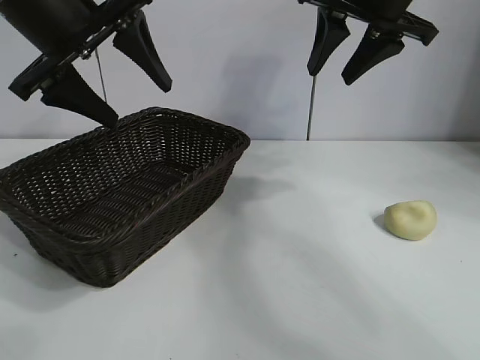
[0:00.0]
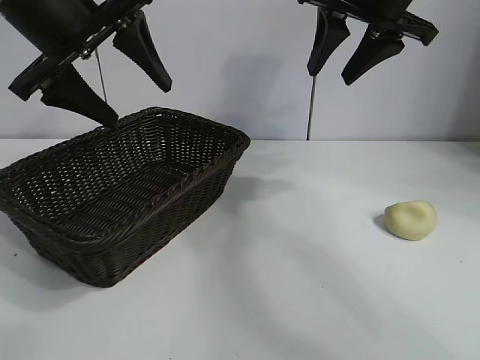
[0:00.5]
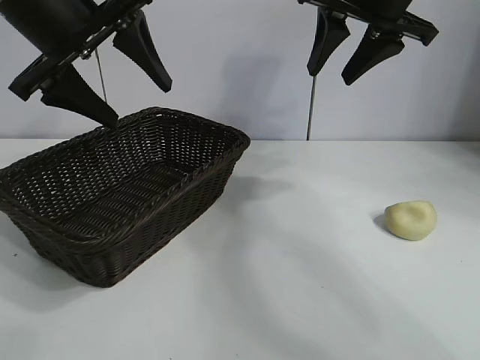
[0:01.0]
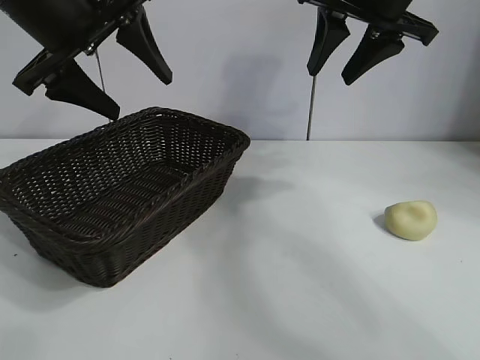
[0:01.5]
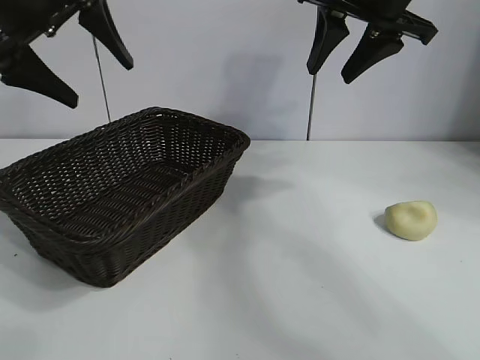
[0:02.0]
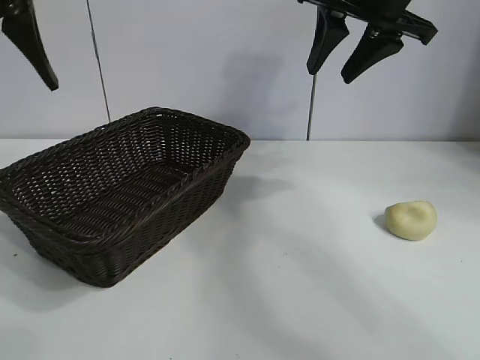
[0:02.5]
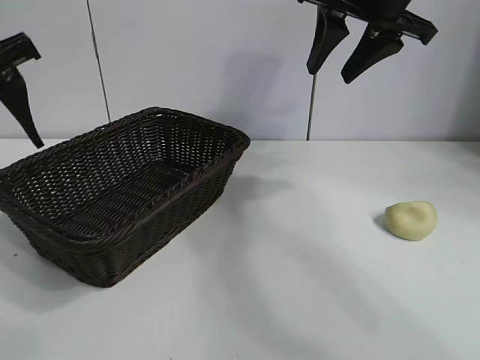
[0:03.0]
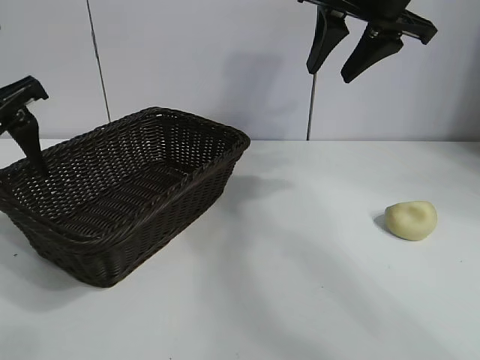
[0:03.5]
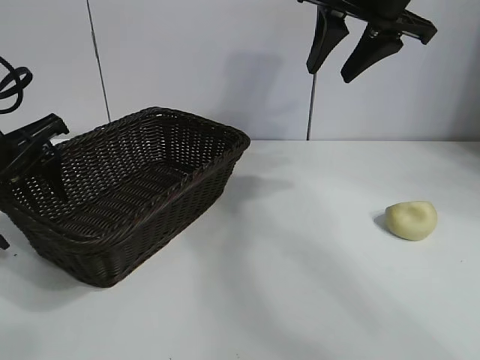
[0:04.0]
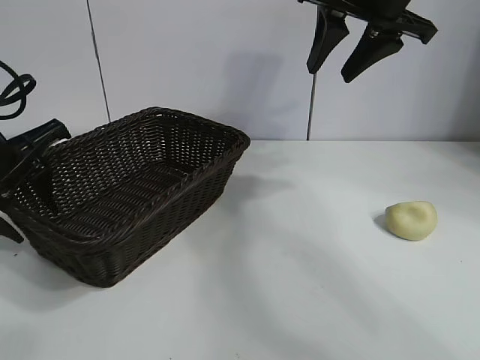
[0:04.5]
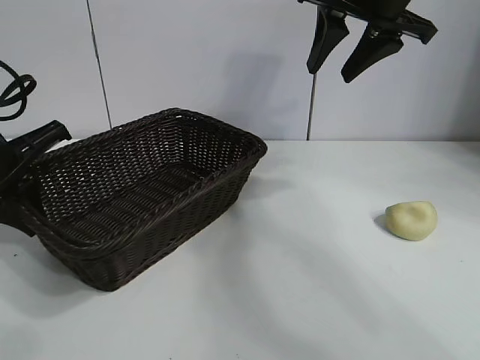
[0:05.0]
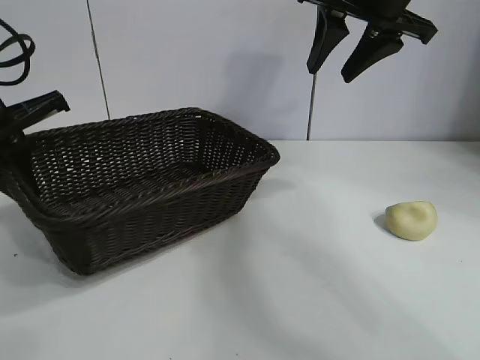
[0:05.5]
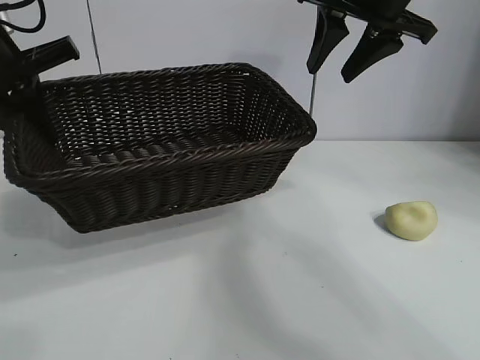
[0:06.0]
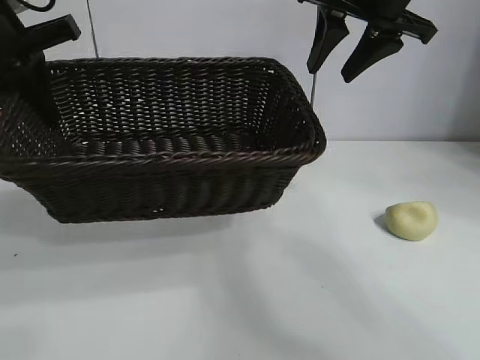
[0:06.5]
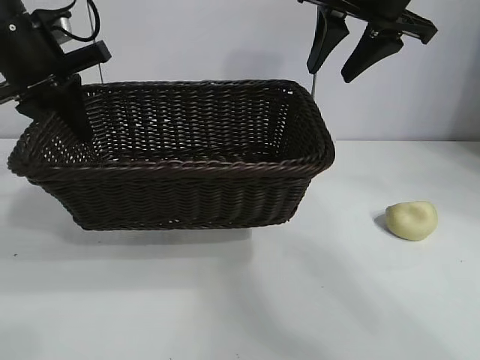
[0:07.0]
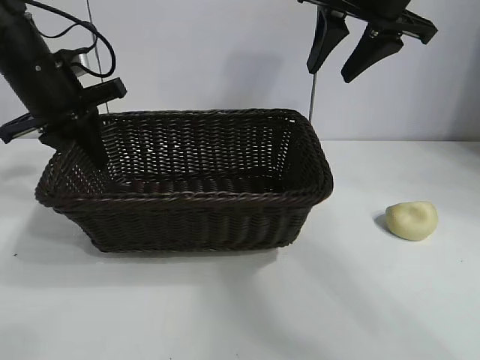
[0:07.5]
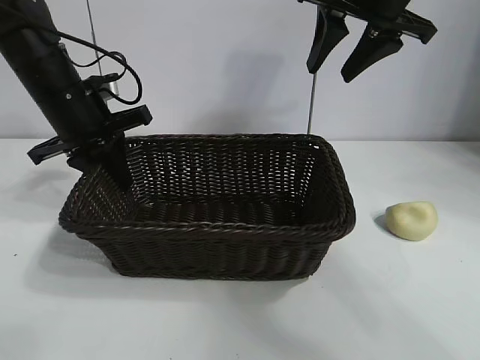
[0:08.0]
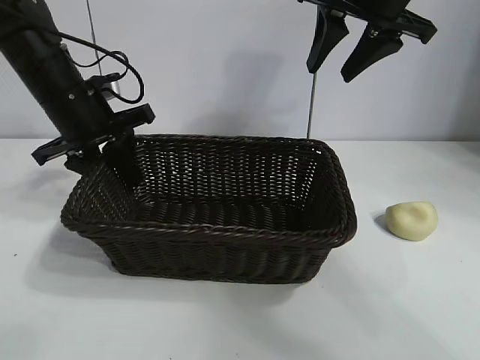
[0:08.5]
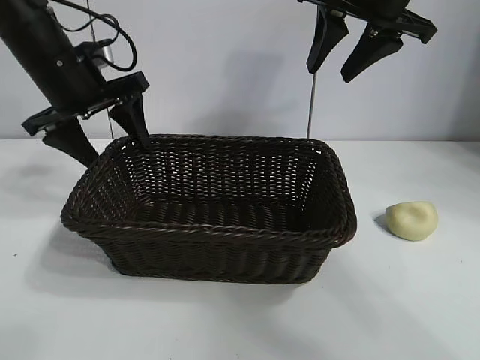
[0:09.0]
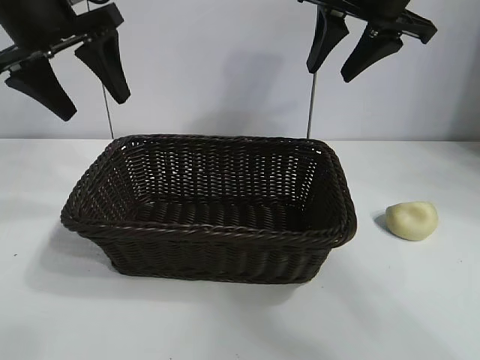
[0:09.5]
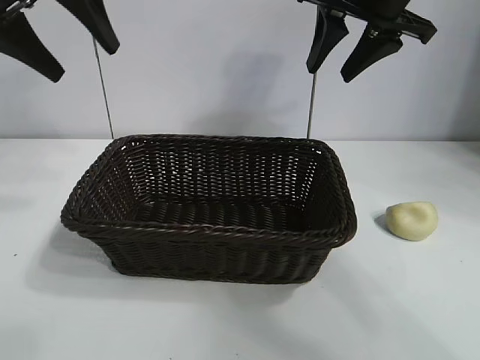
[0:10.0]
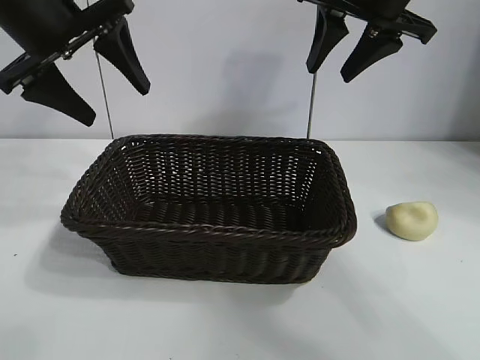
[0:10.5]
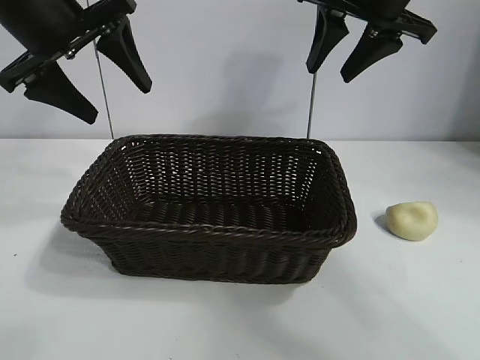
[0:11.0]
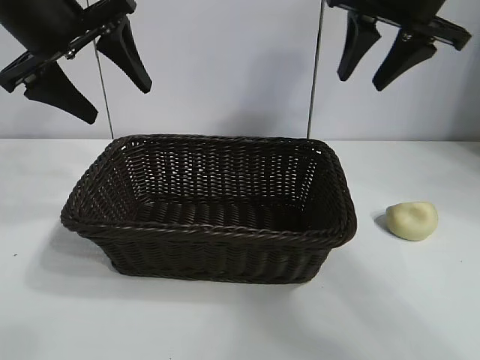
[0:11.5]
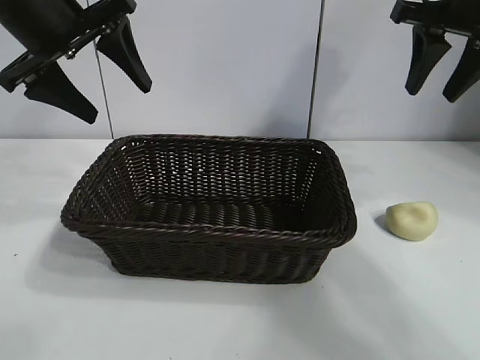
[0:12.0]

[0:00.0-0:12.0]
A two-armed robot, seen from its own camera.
Task of the whole recording: pick up the egg yolk pastry and put it into the basket.
Step, 0:01.5 to 0:04.5: Grasp the basket with left gripper.
Step, 0:05.0 to 0:08.5: Place the basket in the center of view with left gripper.

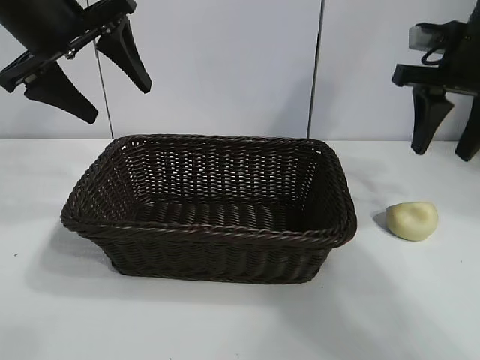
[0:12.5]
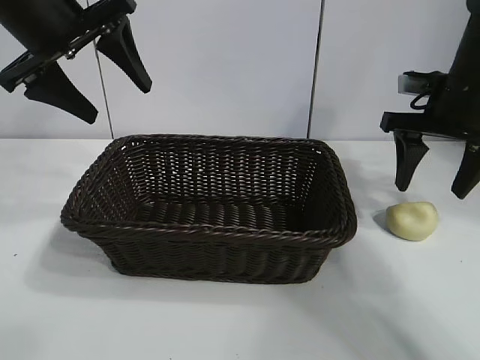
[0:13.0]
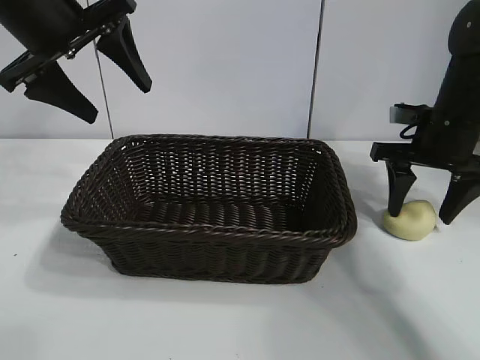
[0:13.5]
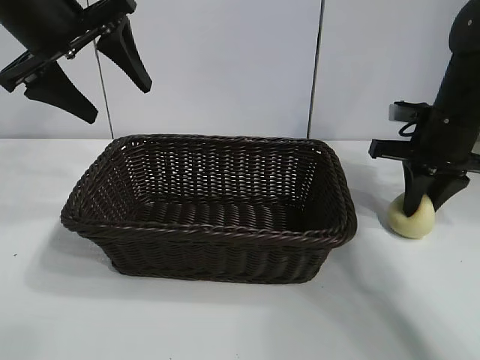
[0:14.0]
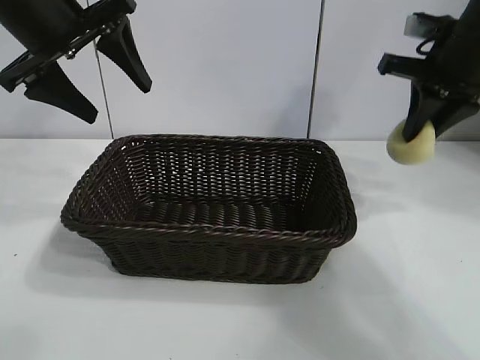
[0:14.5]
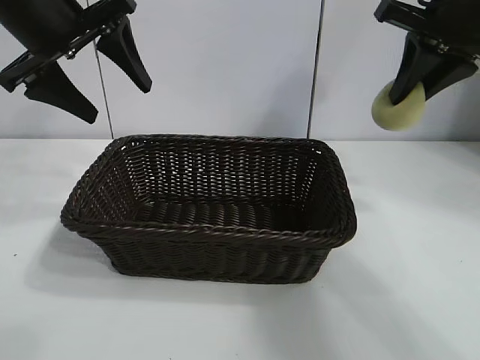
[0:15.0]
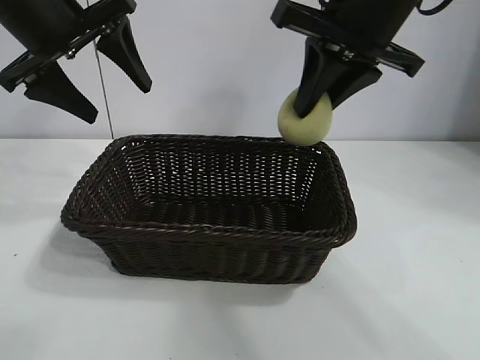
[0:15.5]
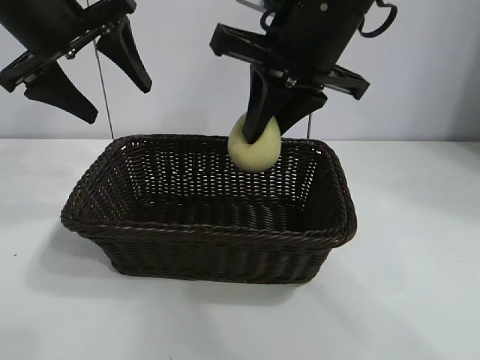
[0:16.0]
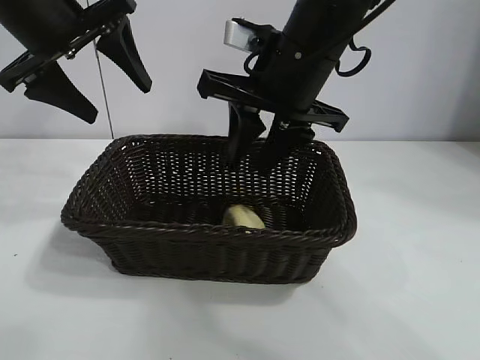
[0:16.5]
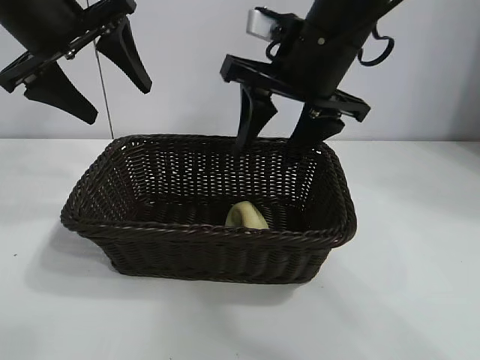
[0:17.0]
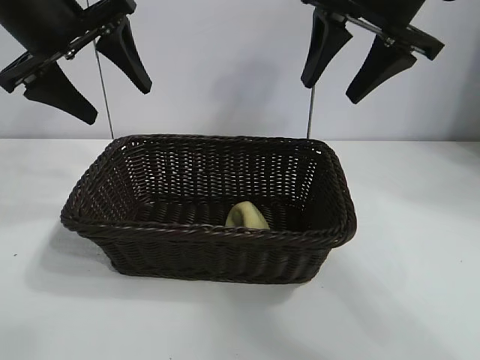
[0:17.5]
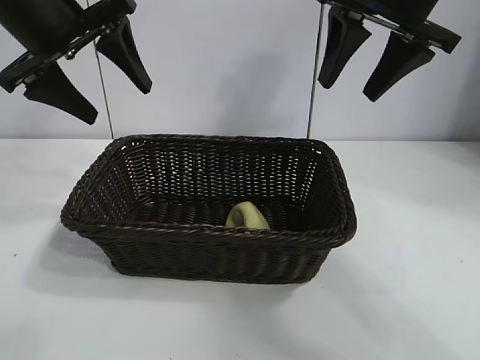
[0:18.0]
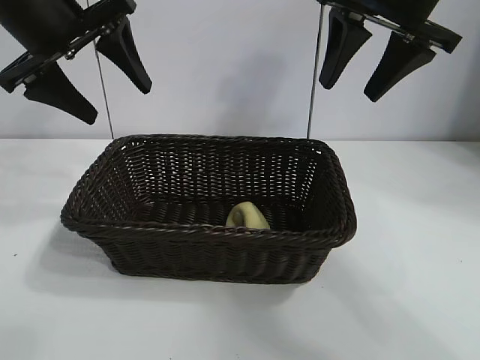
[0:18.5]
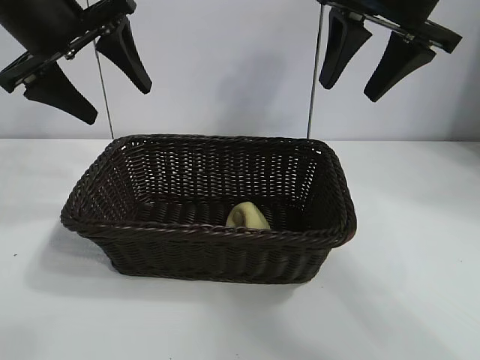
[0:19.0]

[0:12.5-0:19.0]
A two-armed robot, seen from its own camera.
Task of the whole recording: pick up the egg yolk pastry and put it into the basket.
Step, 0:14.0 to 0:16.5: Place the egg yolk pastry in the basket with right gripper.

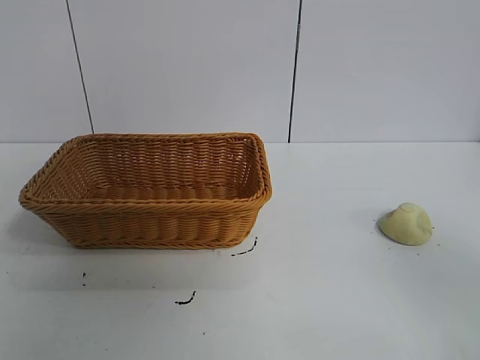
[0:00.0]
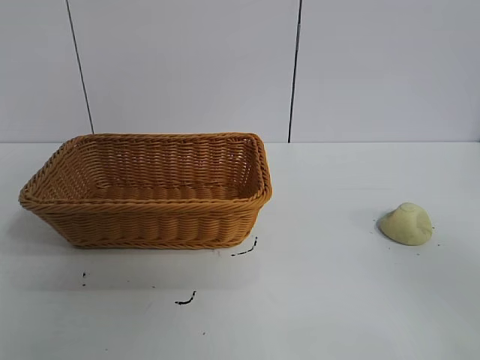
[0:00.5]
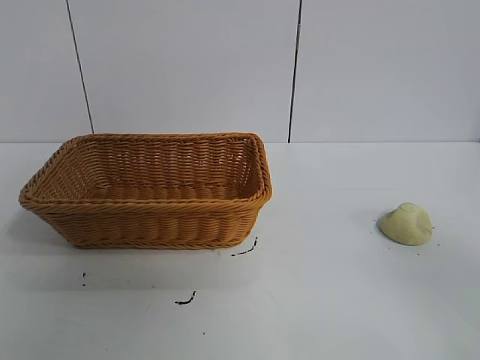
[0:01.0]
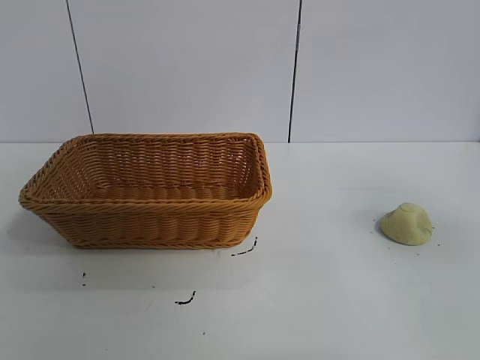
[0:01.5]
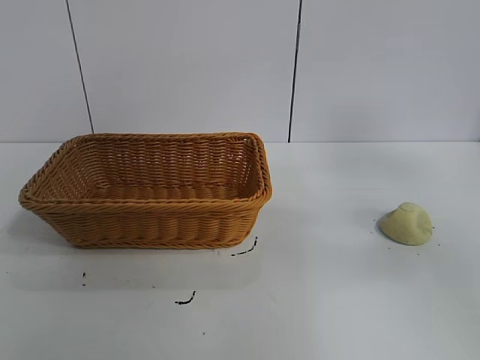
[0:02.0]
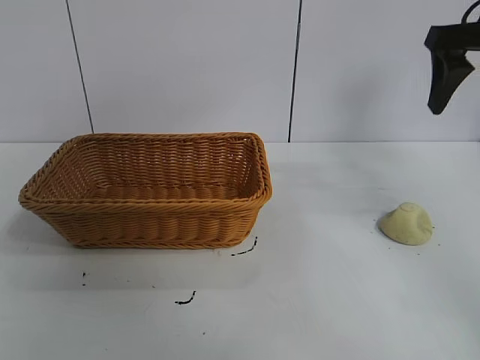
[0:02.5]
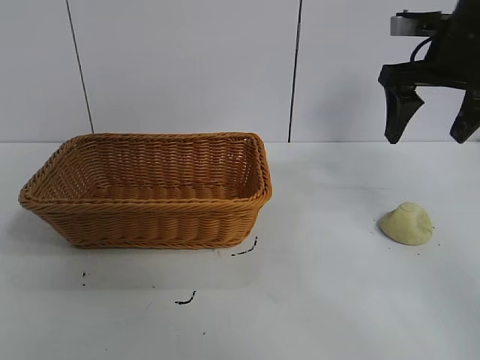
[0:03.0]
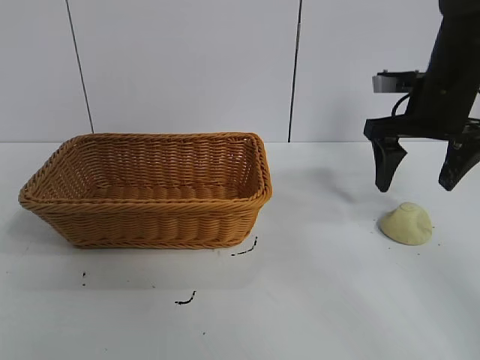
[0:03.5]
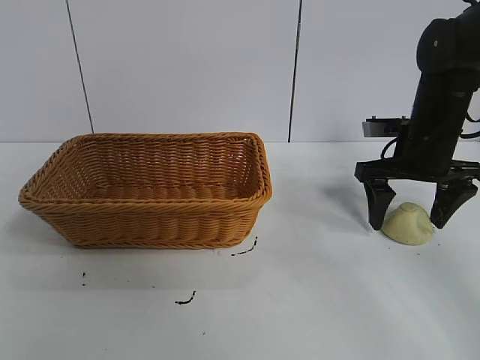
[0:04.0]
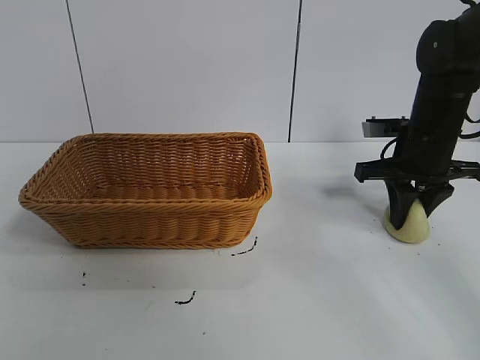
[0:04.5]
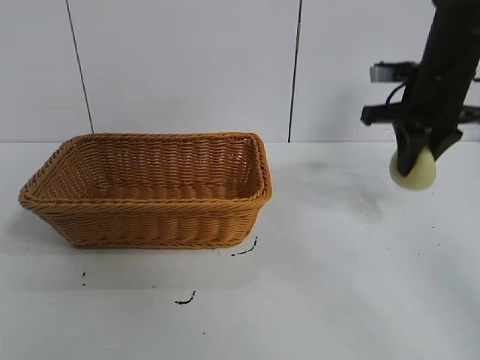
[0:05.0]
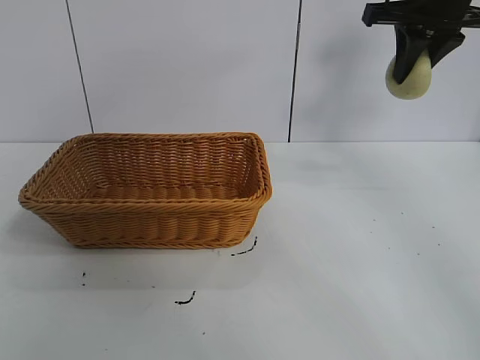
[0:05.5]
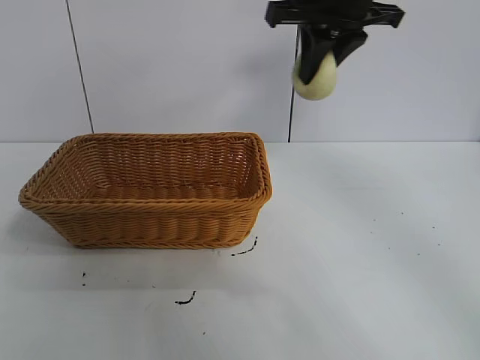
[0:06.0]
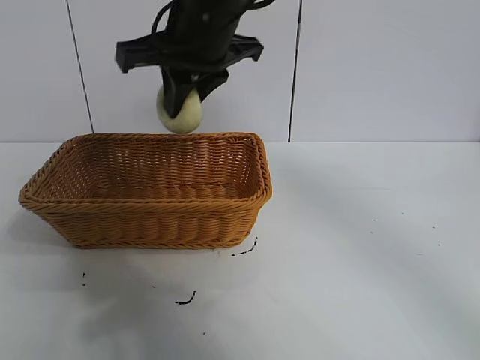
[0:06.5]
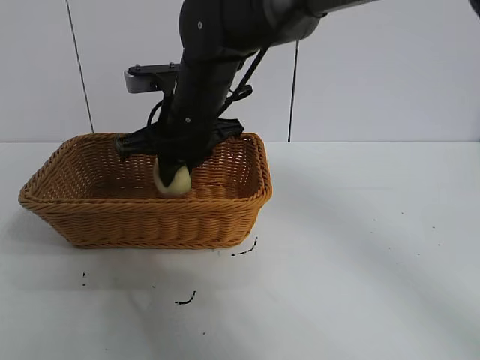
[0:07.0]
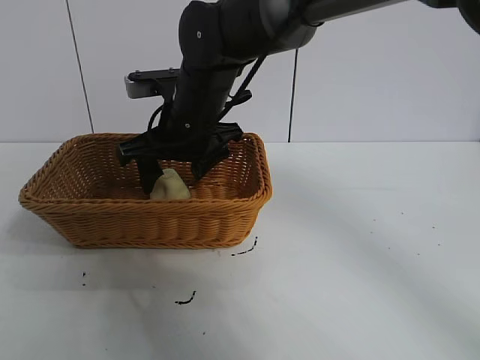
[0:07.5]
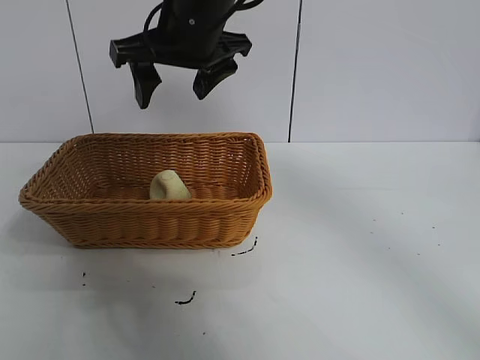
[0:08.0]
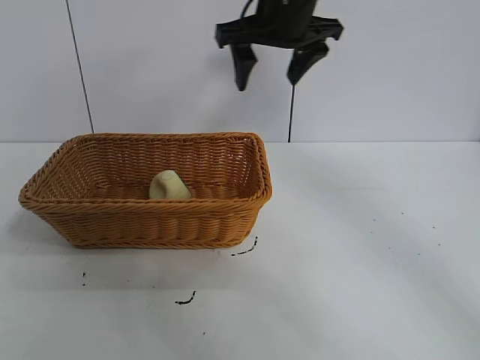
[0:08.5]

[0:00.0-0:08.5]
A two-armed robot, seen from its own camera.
Task of the whole recording: pick up the egg yolk pastry and put it into the basket.
Step, 0:01.5 to 0:04.0: Grasp egg yolk pastry with right gripper.
Step, 0:05.0 to 0:07.5: Place the egg yolk pastry in the basket with right gripper.
